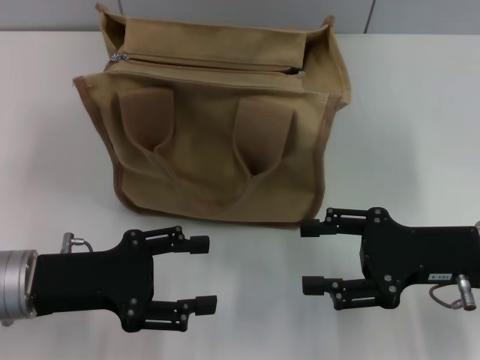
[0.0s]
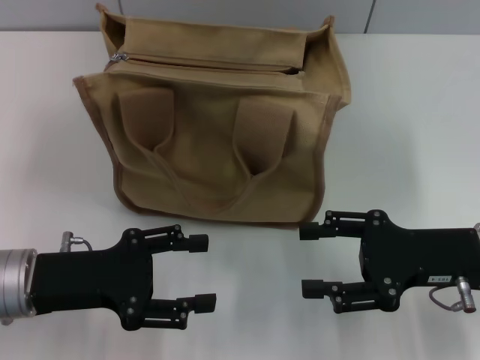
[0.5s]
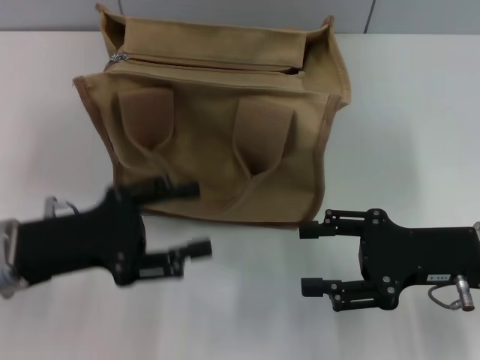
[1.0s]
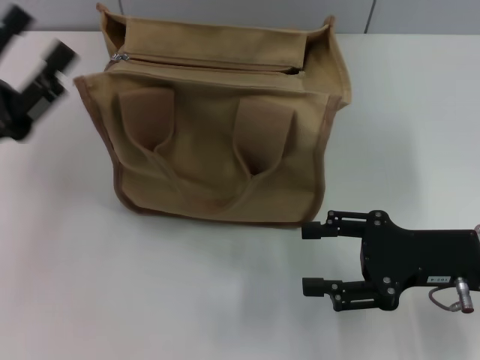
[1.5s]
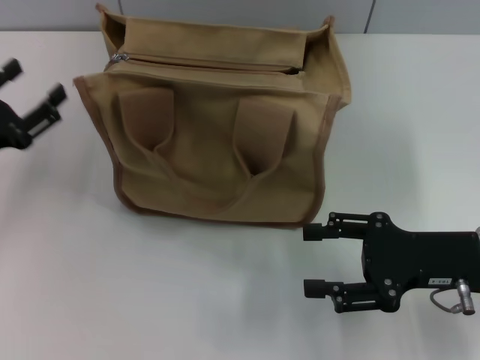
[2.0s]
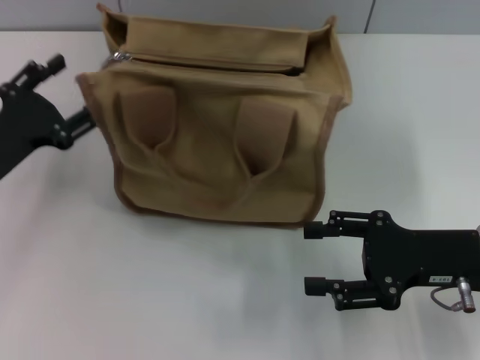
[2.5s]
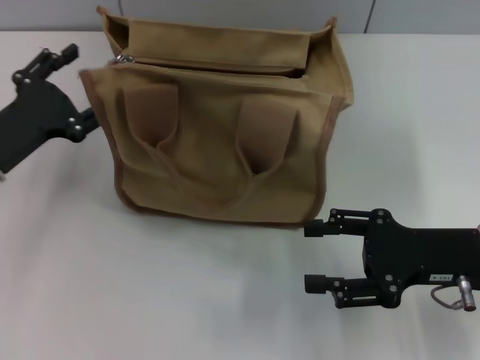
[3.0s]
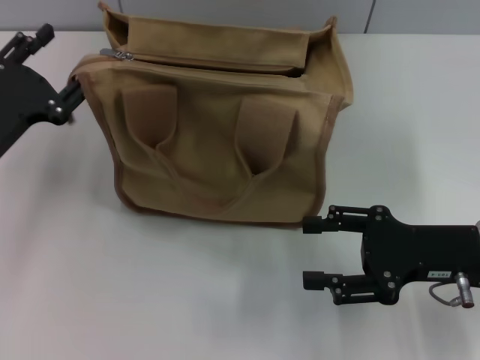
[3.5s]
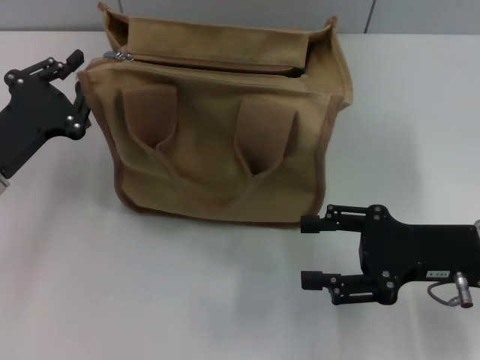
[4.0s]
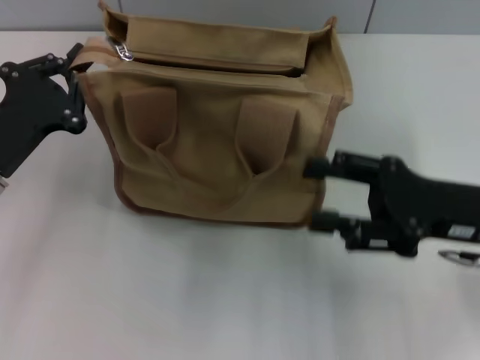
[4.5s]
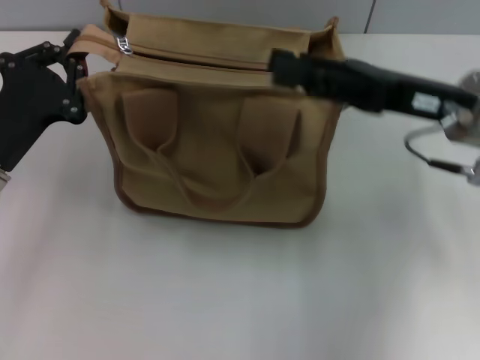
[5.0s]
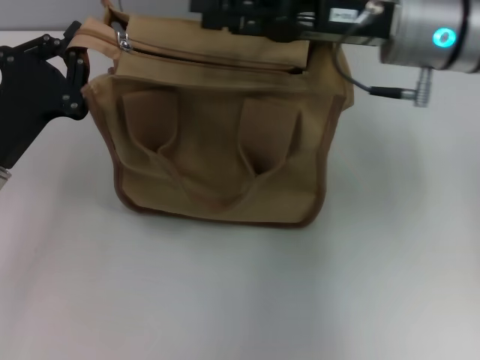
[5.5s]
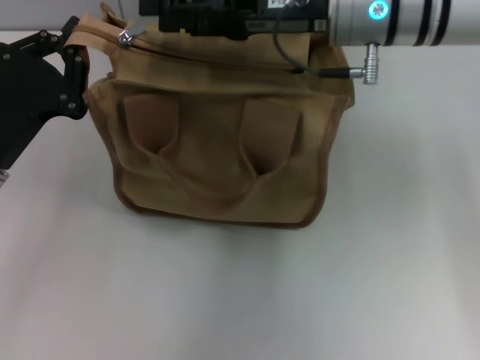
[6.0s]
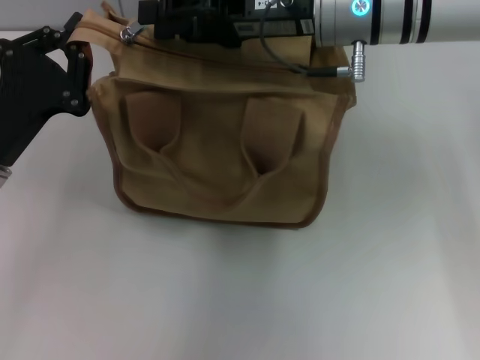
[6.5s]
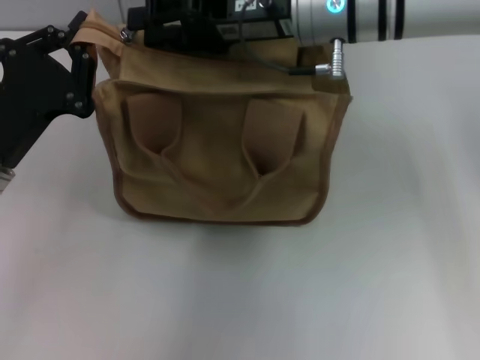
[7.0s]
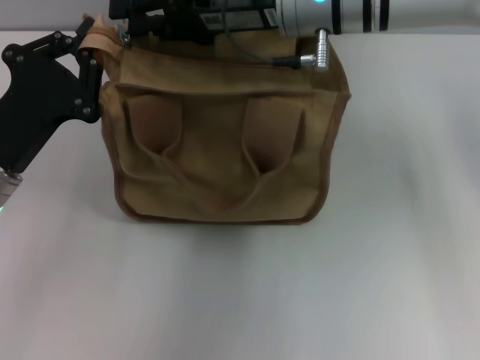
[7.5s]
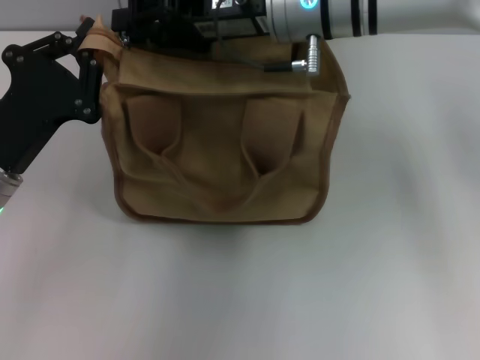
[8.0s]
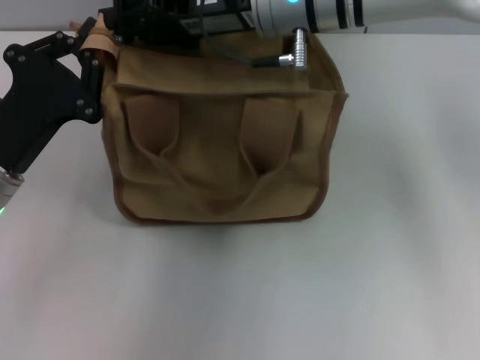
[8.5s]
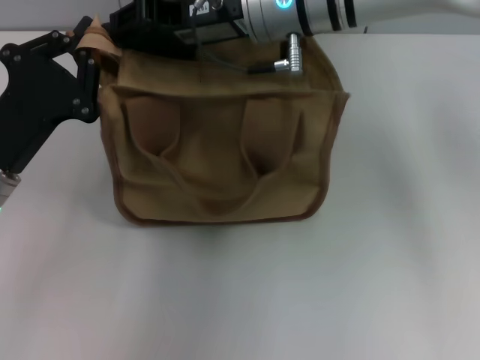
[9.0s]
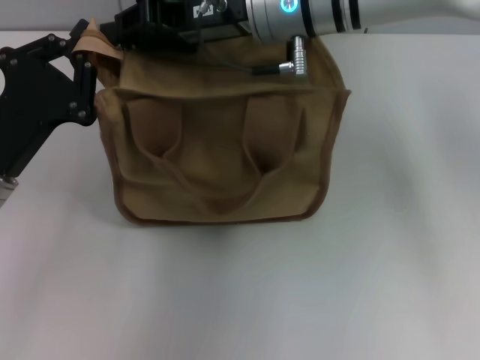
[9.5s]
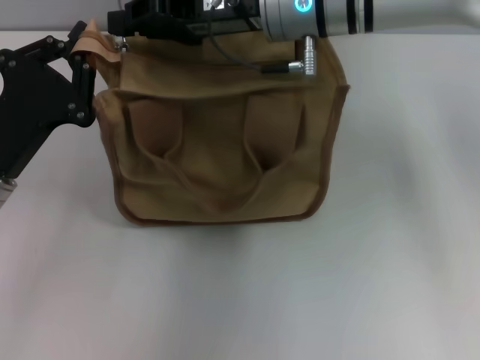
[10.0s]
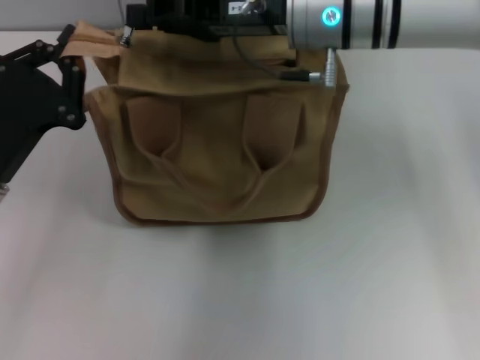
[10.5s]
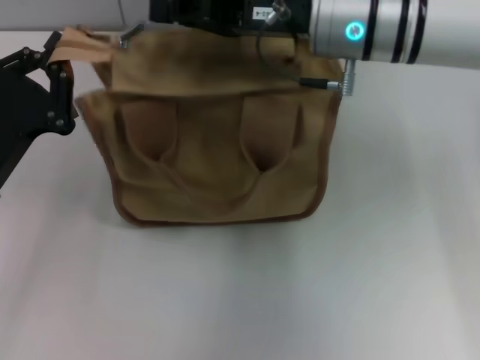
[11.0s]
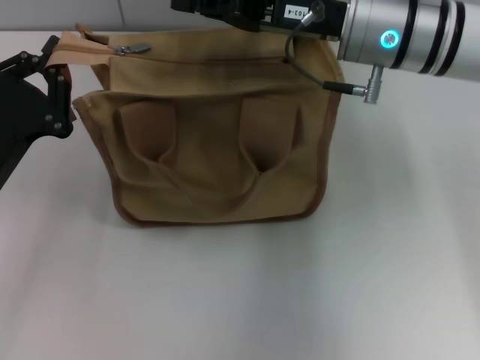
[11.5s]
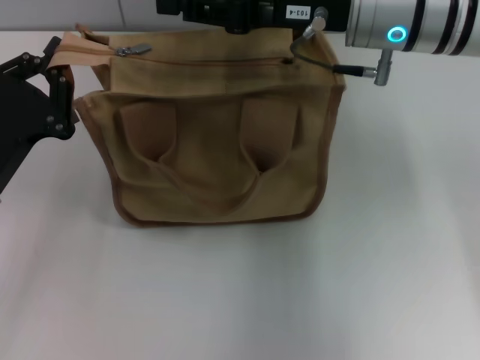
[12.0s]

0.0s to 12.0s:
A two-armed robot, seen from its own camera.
0.0s to 2.0s: The left gripper moves to the left, roughly 10 cm.
2.0s to 4.0s: The left gripper ends up roughly 5 cm from where it was, and closes.
4.0s to 6.0s: The left gripper closes. Meanwhile the right gripper travels forward, to the left and upward by roughly 25 cm.
6.0s to 8.0s: The right gripper closes.
8.0s to 10.0s: The right gripper closes up.
10.0s to 12.0s: The right gripper travels to the right by roughly 5 cm.

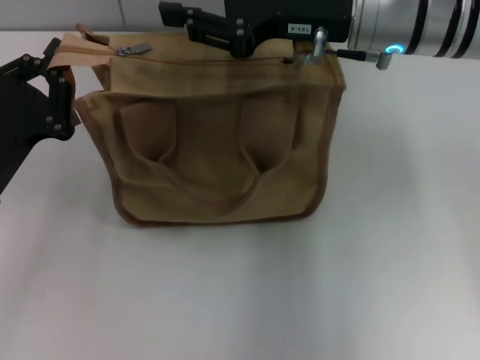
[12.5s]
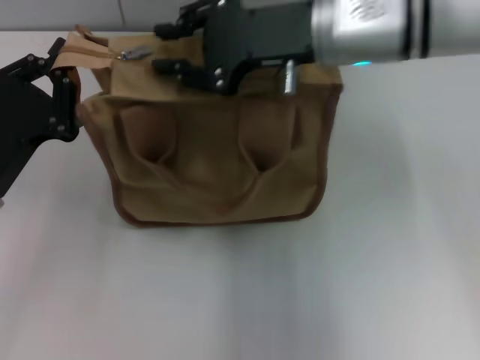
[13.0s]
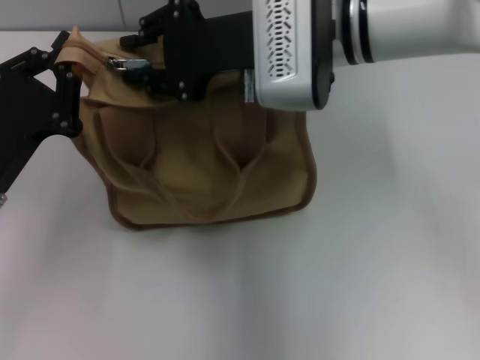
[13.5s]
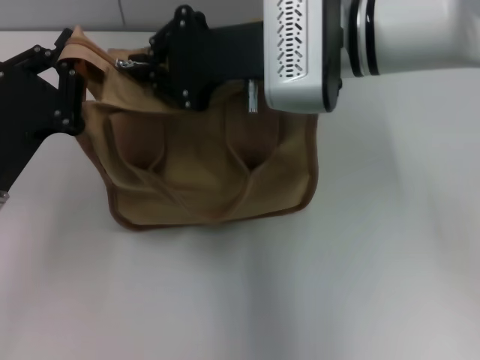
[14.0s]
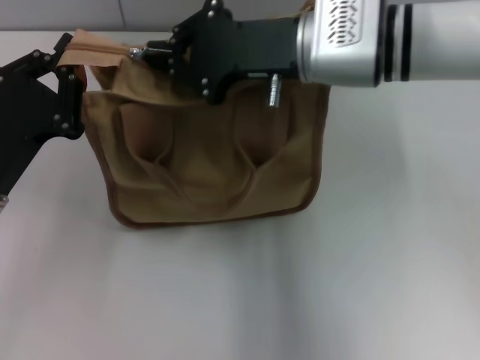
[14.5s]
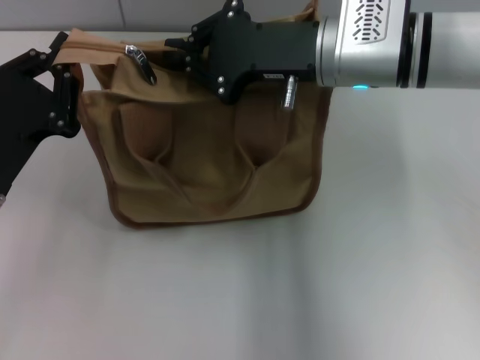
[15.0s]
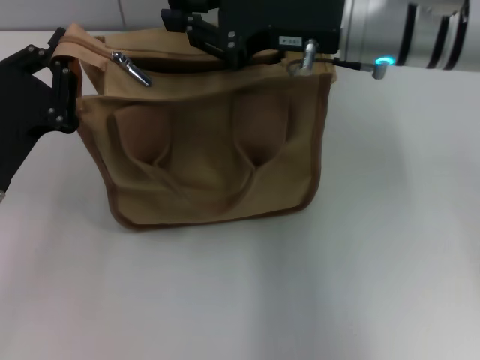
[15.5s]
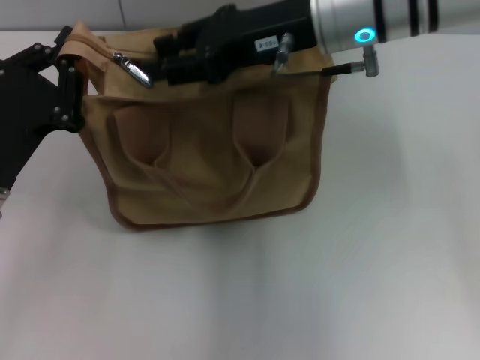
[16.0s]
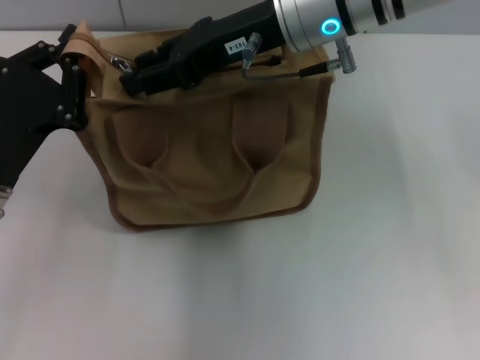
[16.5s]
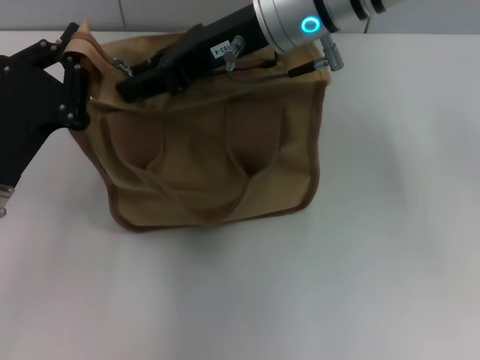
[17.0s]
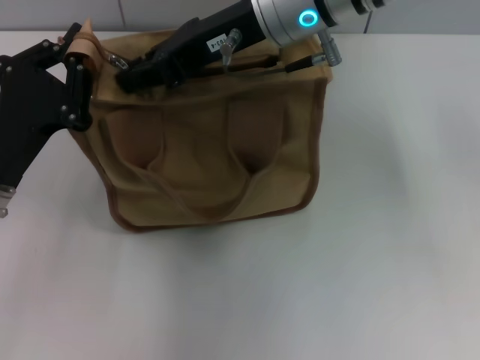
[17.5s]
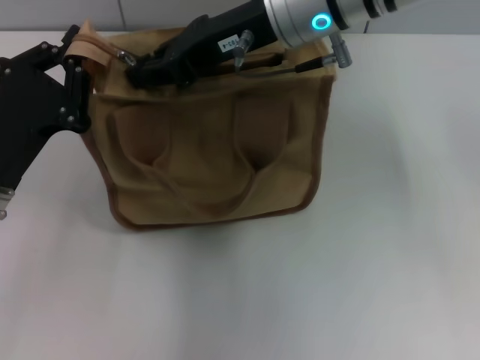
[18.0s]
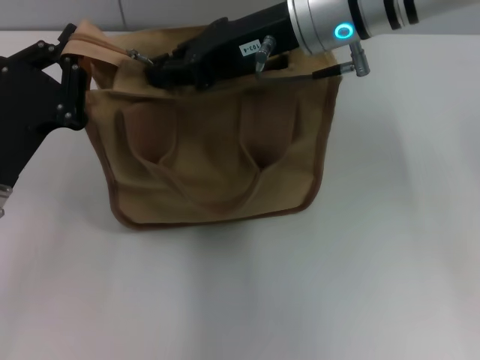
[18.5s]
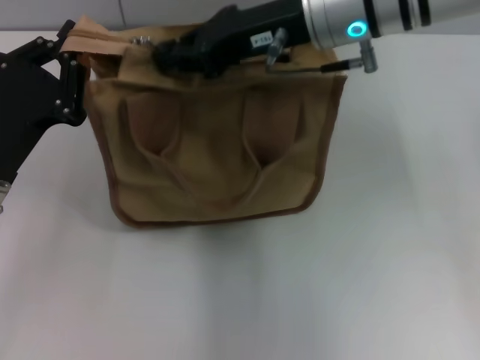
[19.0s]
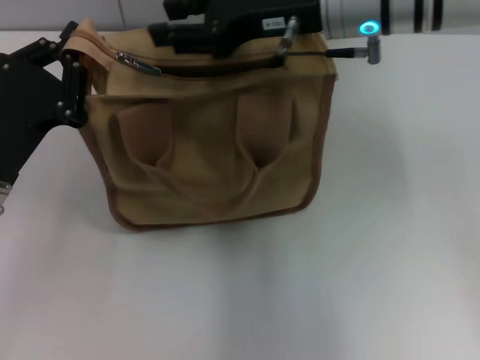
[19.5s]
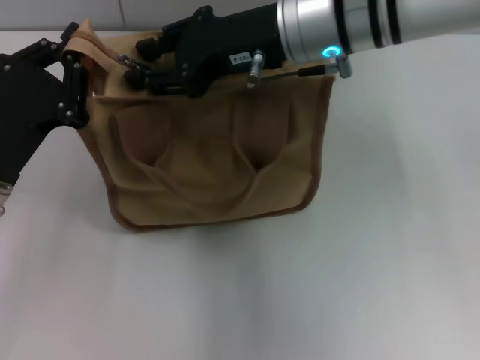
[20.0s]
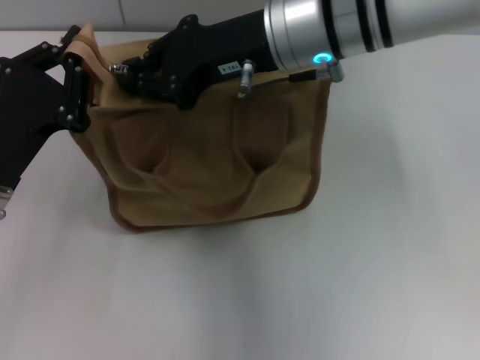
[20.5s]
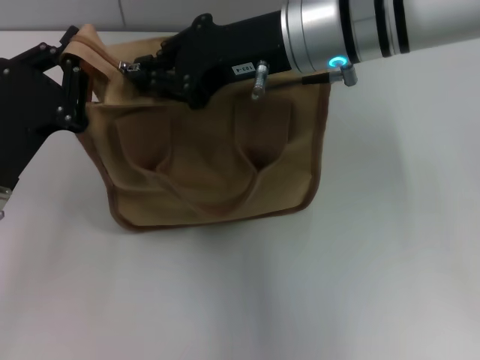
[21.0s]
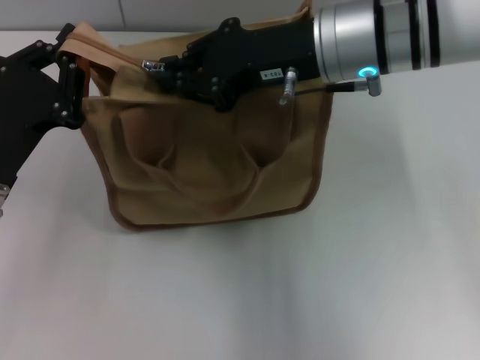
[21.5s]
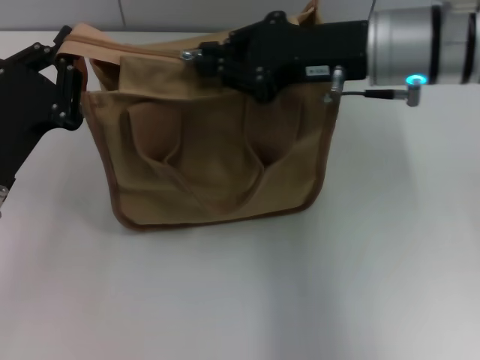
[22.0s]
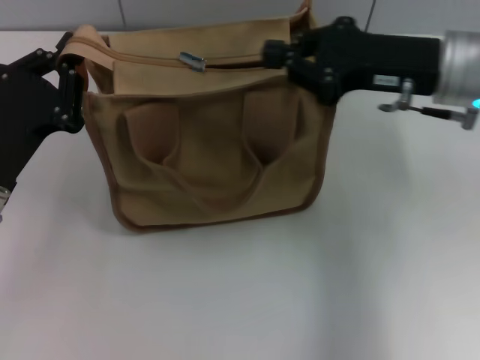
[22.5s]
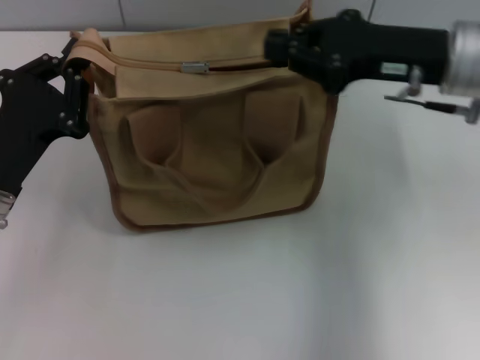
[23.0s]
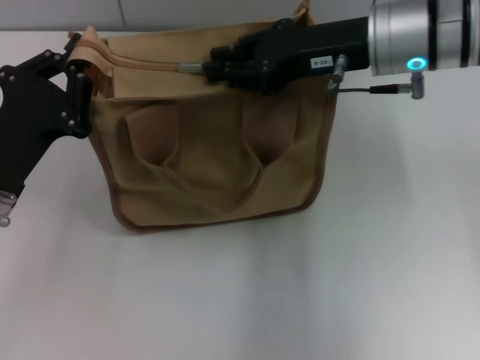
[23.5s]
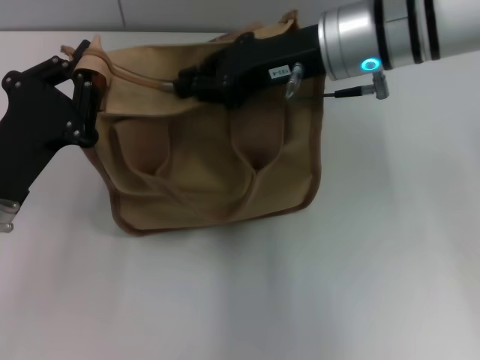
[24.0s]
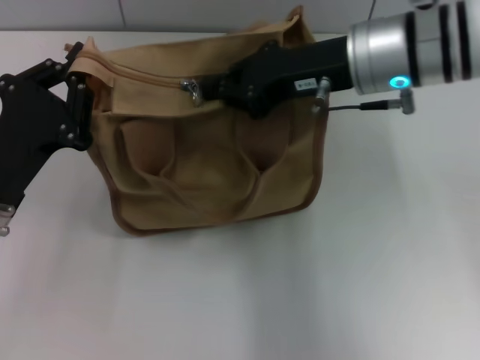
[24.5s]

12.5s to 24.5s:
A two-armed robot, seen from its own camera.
12.5s to 14.5s: The right gripper closes up.
14.5s to 16.5s: The right gripper shifts by about 5 cm, and opens.
16.5s to 18.5s: The right gripper closes.
18.5s to 20.5s: The right gripper opens, then closes again.
20.5s to 22.5s: The right gripper travels to the right by some 15 cm.
22.5s to 24.5s: The right gripper moves to the left, roughly 5 cm.

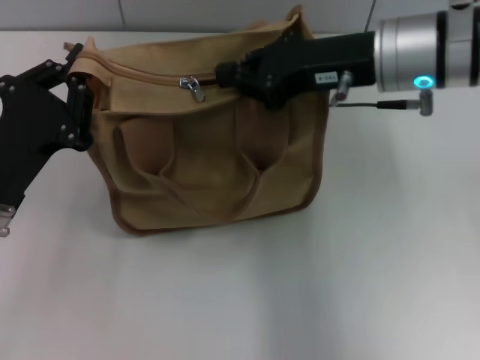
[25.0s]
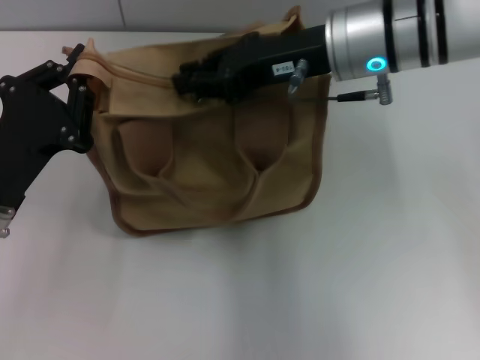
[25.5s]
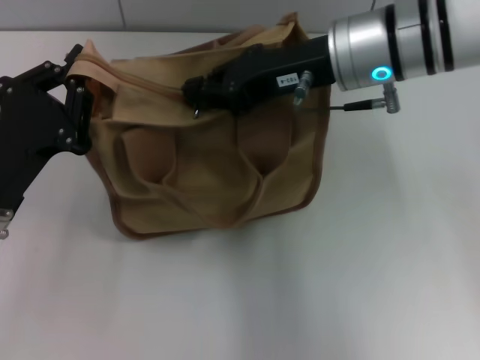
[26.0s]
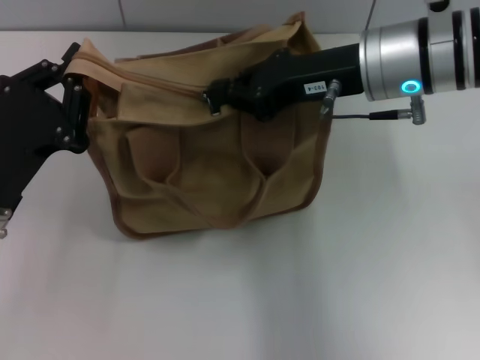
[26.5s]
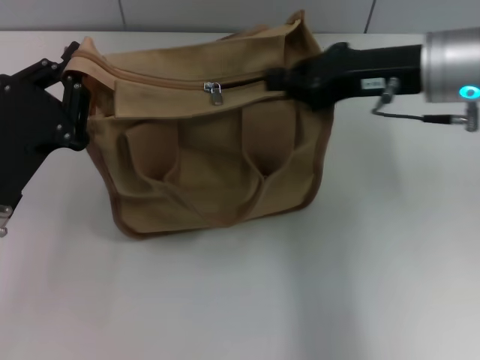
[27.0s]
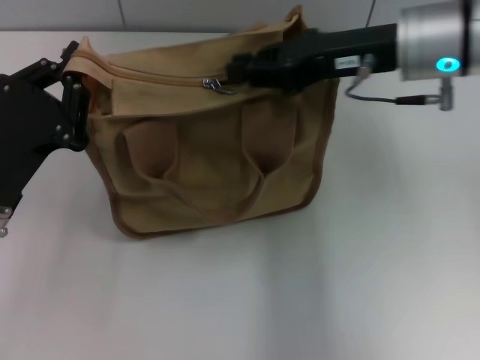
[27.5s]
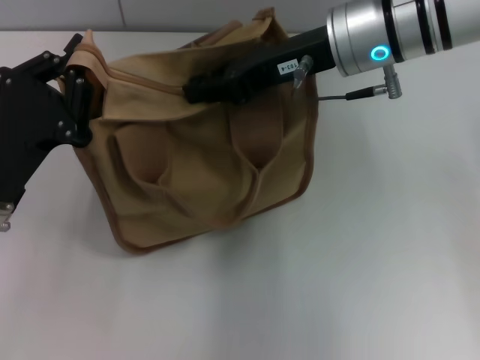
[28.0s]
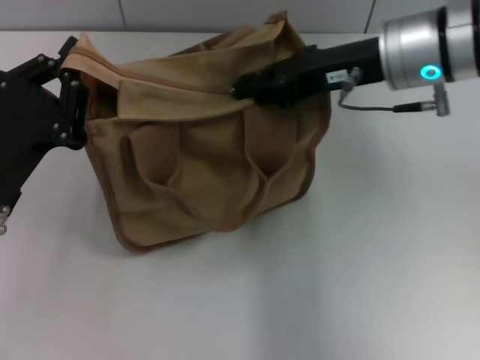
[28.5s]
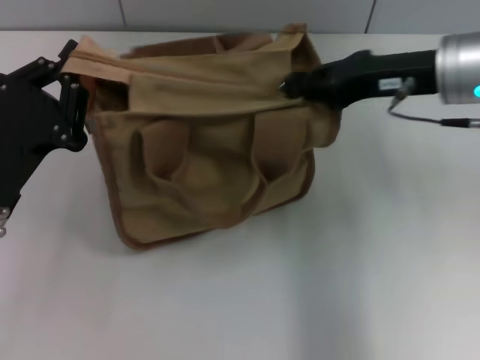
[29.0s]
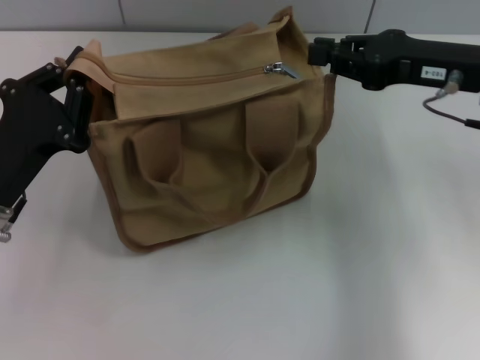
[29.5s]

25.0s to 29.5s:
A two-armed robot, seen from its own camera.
Step, 25.0s to 29.0s: Pull up the zipper with your right hand.
25.0s to 27.0s: The grippers make only small movements.
27.0s to 29.5s: The right gripper travels to the left and back again, roughly 10 cm each way.
